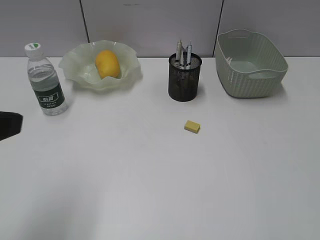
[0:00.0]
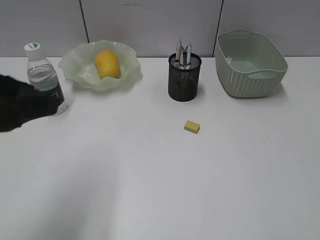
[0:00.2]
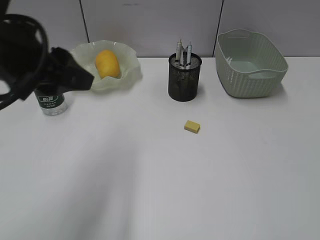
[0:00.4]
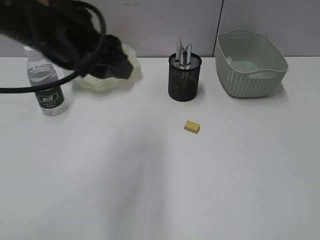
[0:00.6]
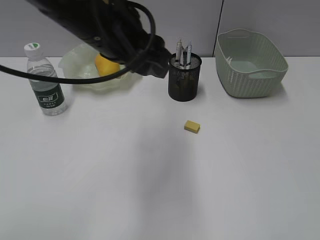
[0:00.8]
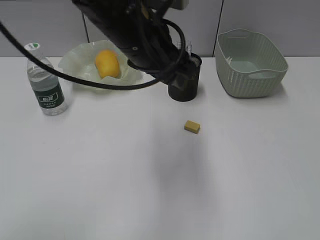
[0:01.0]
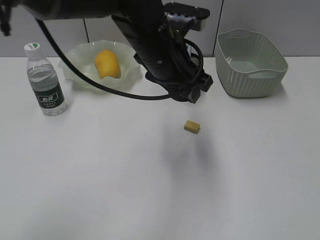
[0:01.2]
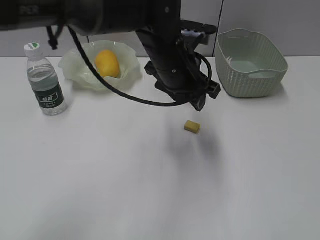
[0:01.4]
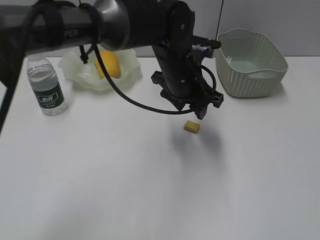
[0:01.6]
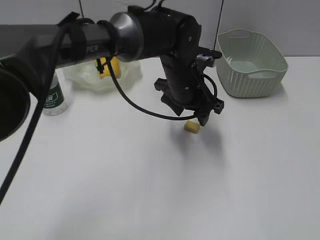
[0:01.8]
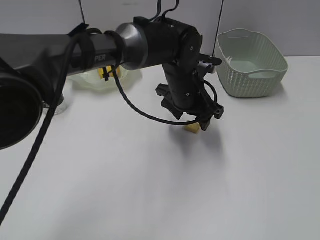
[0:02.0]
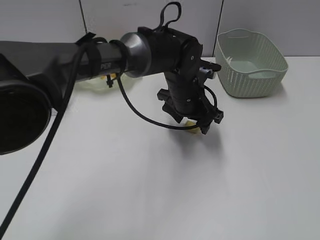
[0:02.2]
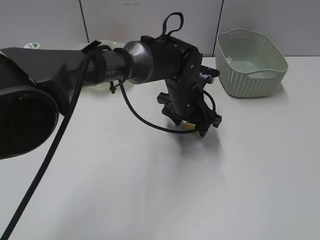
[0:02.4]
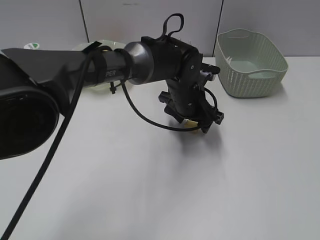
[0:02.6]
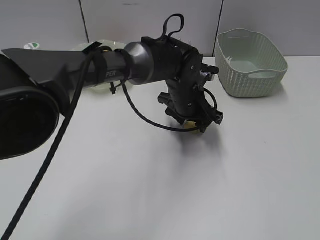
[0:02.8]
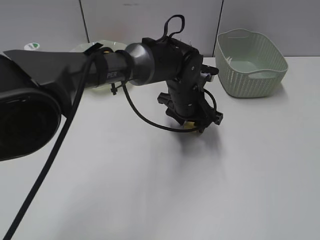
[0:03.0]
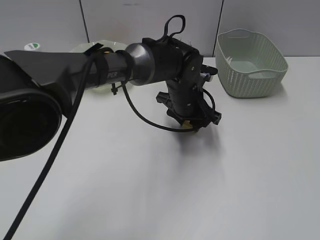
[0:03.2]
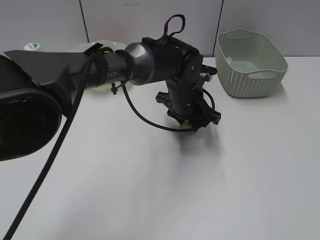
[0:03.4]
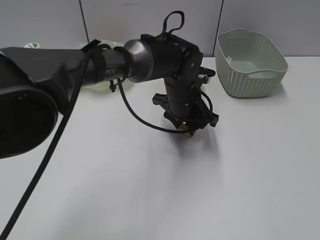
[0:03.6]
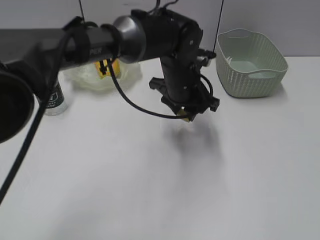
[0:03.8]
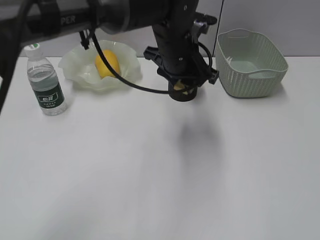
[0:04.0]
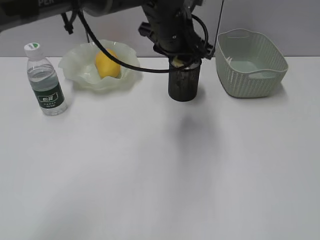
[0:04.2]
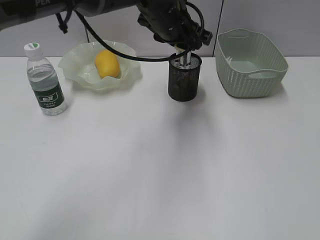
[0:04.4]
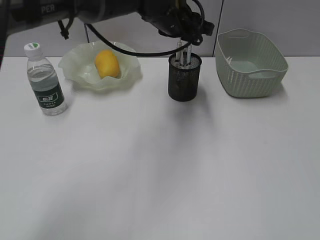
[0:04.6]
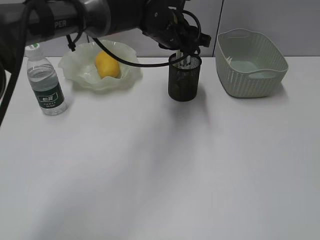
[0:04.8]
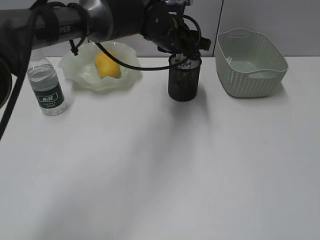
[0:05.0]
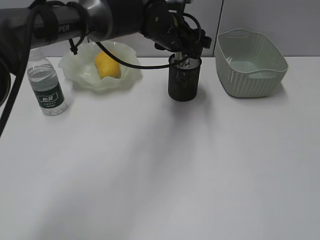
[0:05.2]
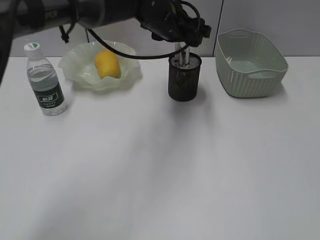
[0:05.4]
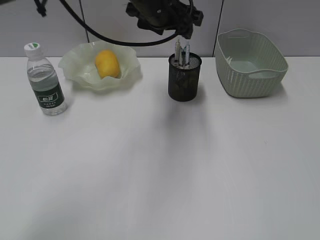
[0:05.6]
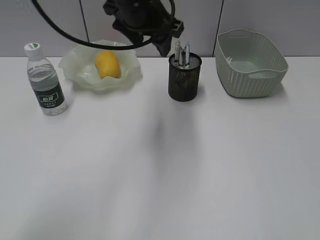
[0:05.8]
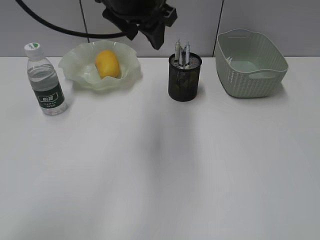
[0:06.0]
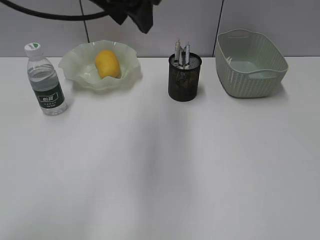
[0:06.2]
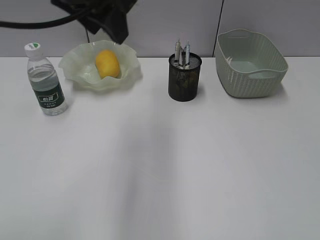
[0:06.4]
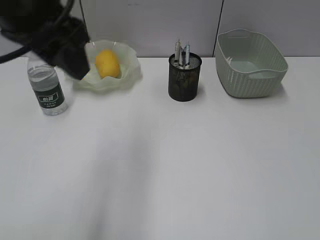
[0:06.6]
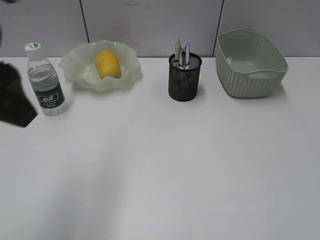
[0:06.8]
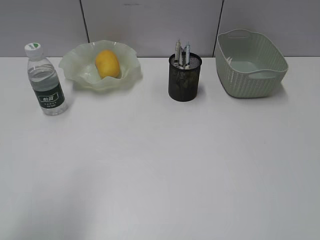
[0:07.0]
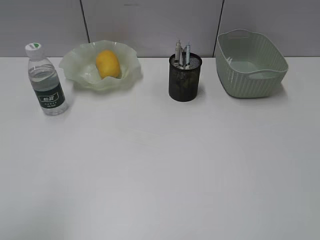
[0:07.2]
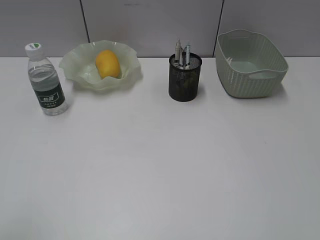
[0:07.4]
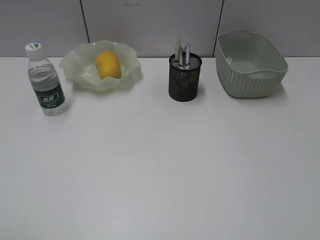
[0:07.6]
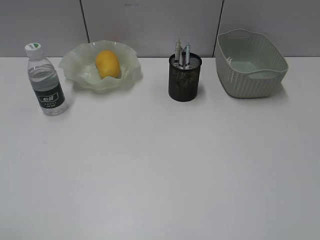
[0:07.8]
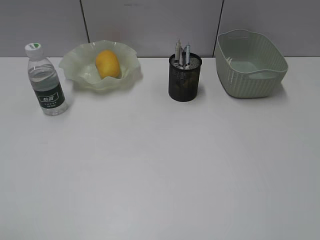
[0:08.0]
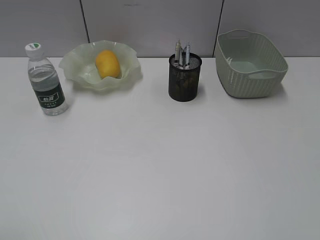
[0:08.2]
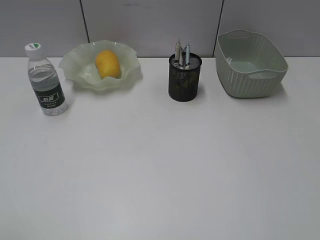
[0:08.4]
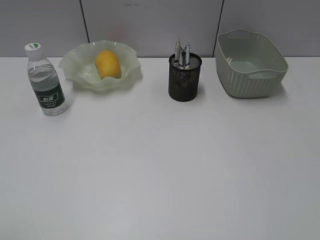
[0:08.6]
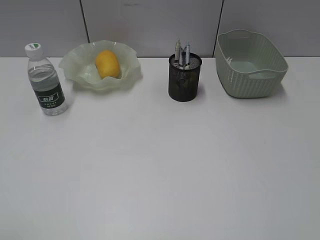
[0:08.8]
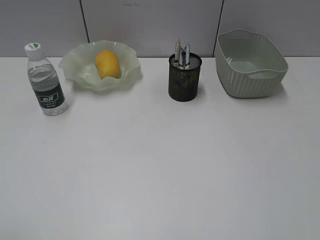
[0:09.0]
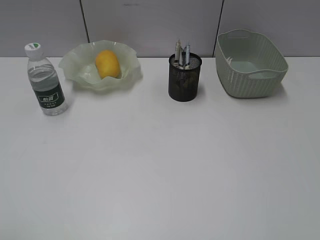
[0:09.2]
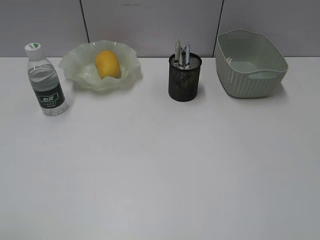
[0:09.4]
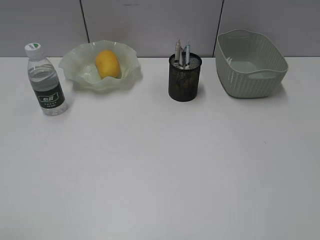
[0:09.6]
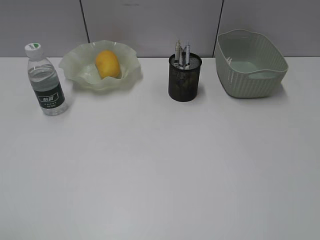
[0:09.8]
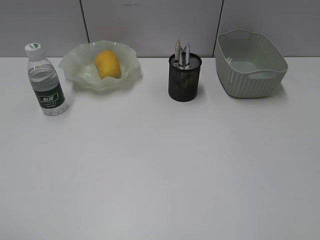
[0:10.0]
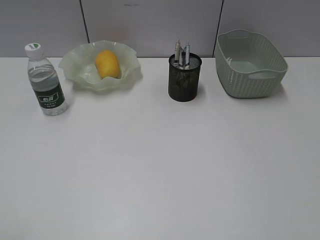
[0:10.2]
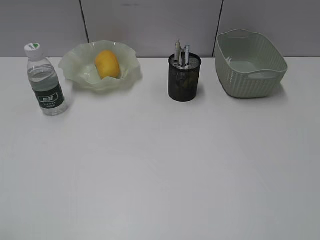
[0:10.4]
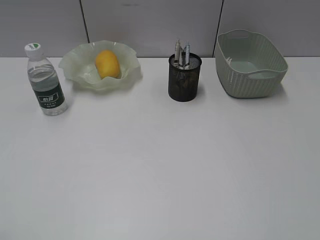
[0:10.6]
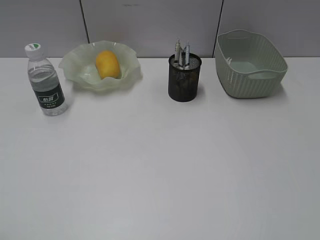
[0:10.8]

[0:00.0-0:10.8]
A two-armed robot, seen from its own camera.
Step, 0:00.0 to 0:03.4: Grasp the eraser with left gripper.
Step, 0:03.6 to 0:05.2: Place the eraser in pen holder with left gripper.
0:00.0 to 0:01.6: The left gripper travels to the right and forward by about 35 cm.
0:01.6 to 0:03.0: The left gripper moves downward, about 5 cm.
0:03.0 to 0:04.6: The left gripper goes about 15 cm upward.
0:04.6 to 0:06.2: The left gripper is displaced upward, backward and to the left by approximately 20 cm.
0:06.2 to 0:07.8: The left gripper moves backward and to the left, some 40 cm.
0:07.8 to 0:09.2: Both grippers stay put.

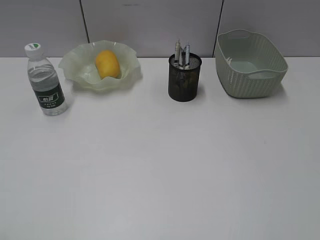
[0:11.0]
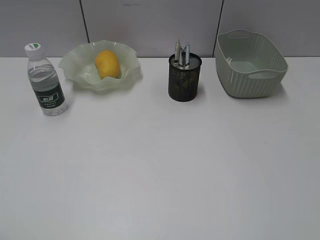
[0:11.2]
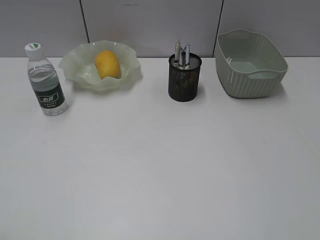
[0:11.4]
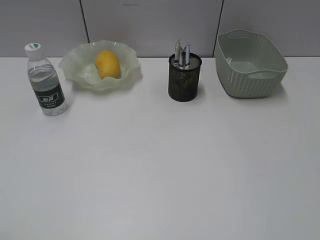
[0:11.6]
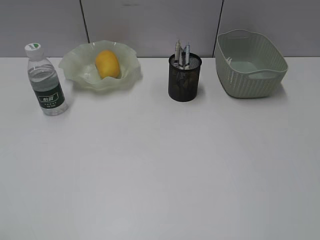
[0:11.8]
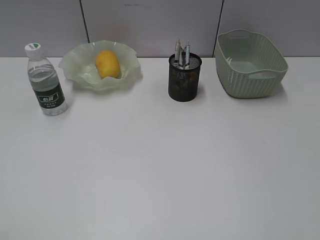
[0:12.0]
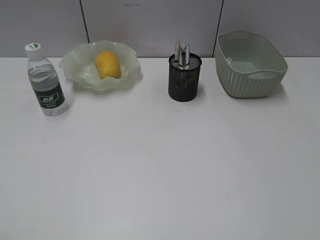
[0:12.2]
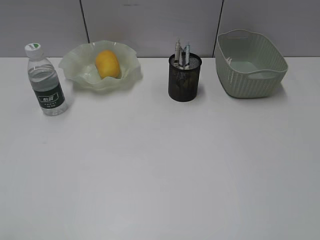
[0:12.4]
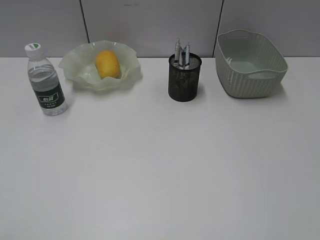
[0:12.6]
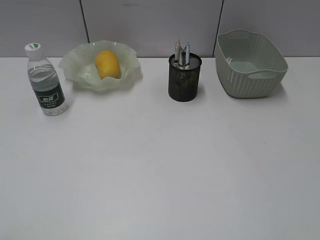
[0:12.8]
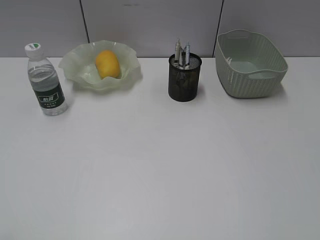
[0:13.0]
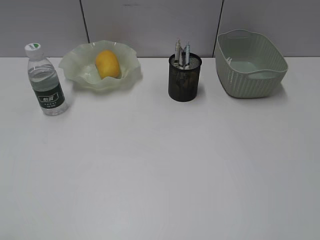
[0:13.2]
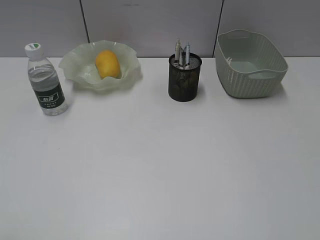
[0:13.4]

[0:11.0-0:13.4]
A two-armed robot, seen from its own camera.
0:12.2 to 0:13.4: Both grippers stay about where they are.
